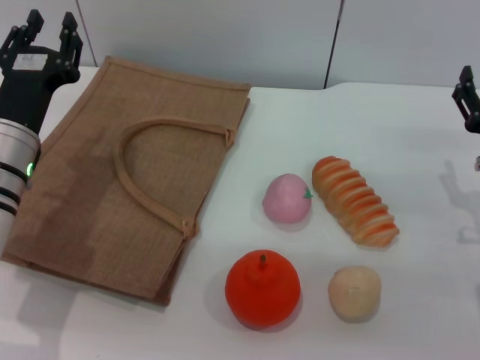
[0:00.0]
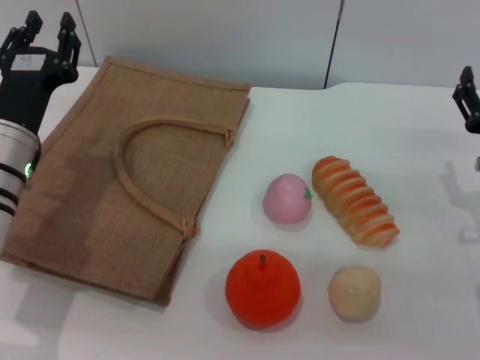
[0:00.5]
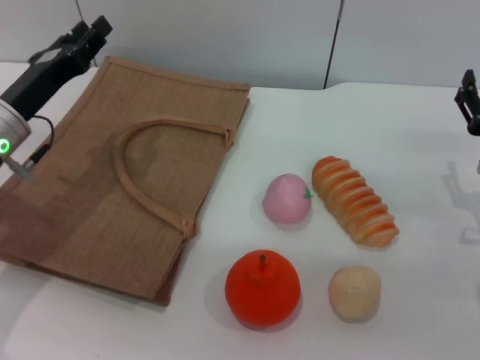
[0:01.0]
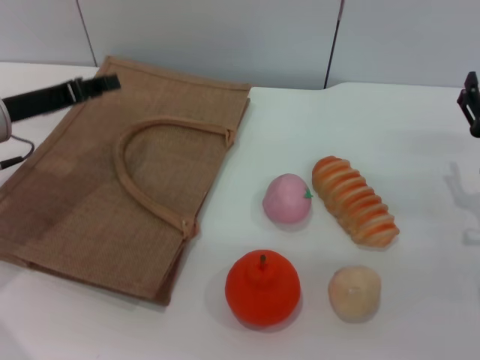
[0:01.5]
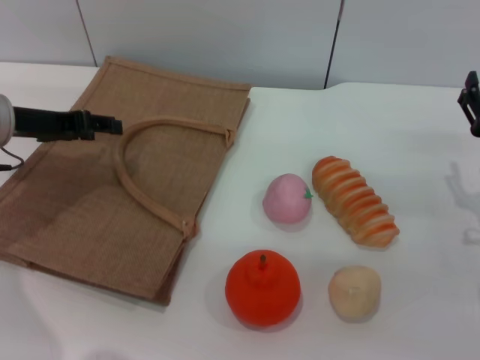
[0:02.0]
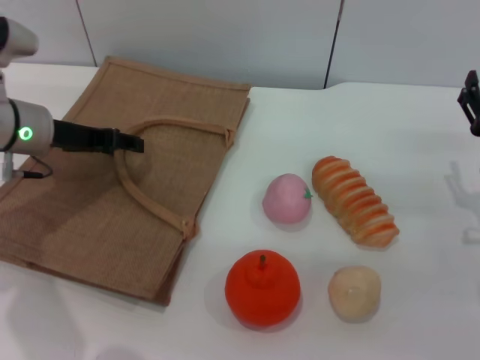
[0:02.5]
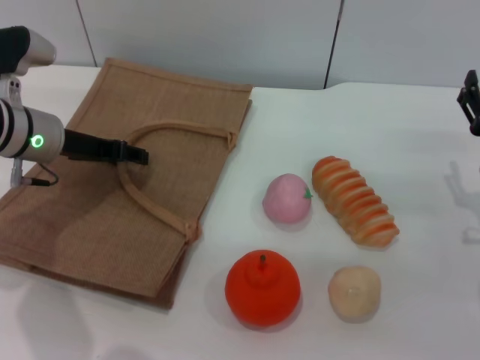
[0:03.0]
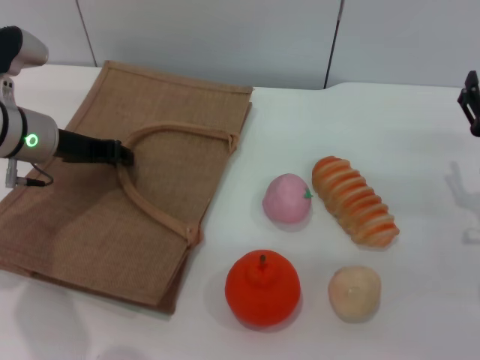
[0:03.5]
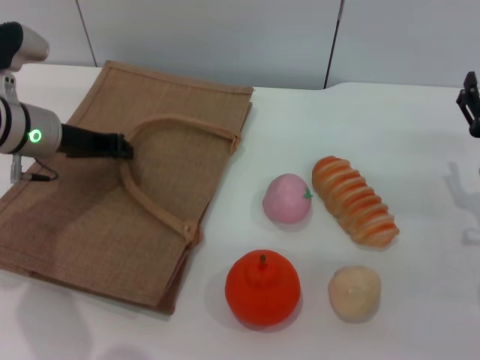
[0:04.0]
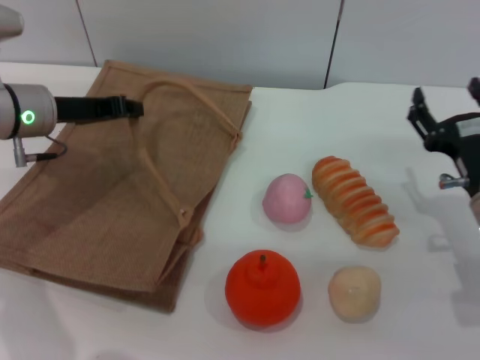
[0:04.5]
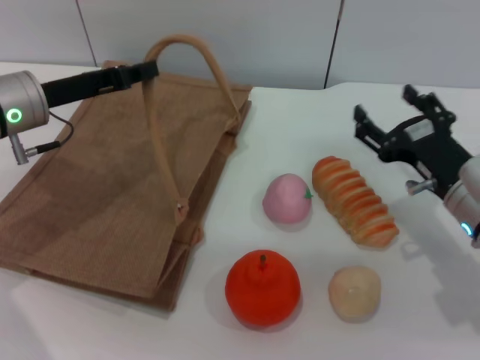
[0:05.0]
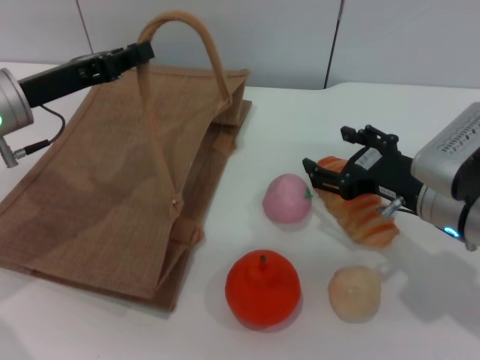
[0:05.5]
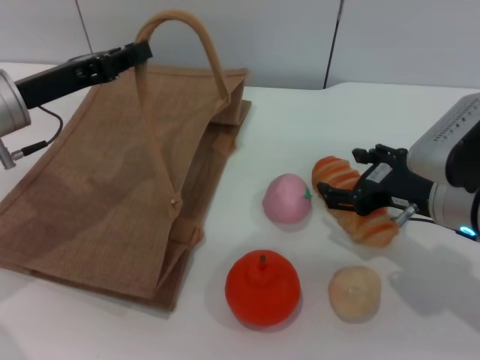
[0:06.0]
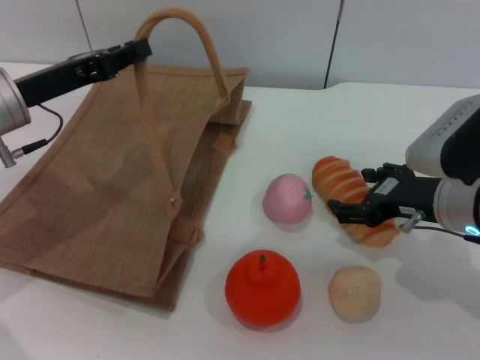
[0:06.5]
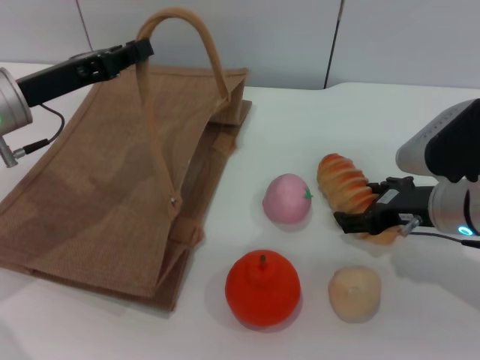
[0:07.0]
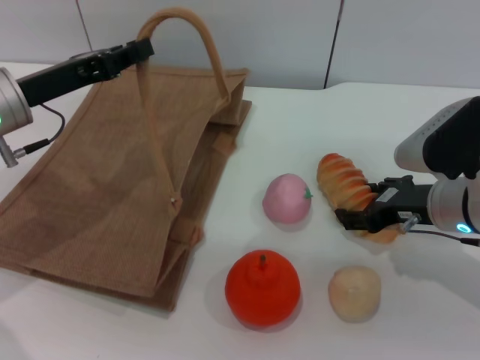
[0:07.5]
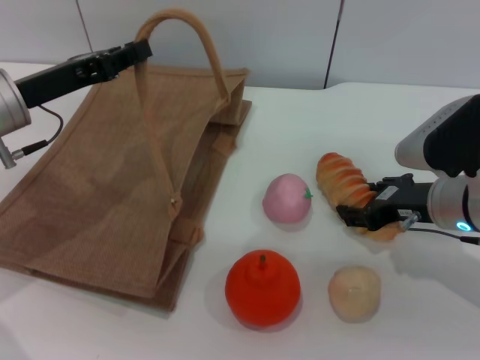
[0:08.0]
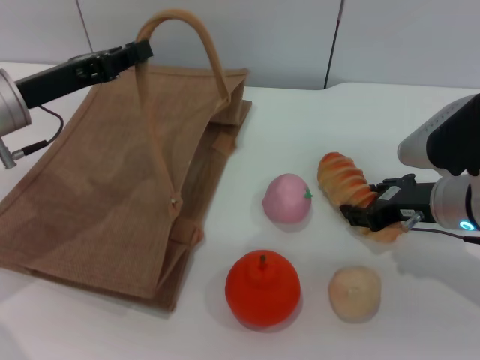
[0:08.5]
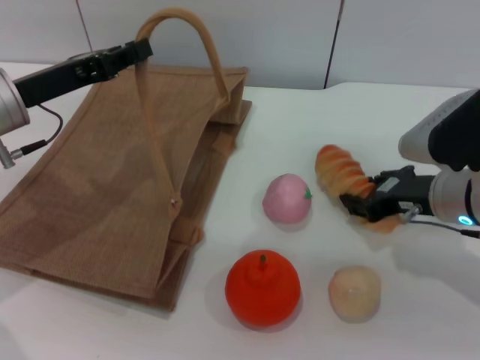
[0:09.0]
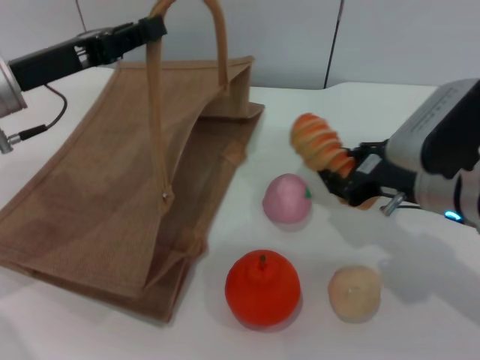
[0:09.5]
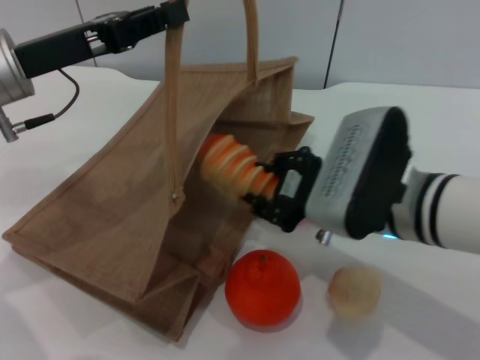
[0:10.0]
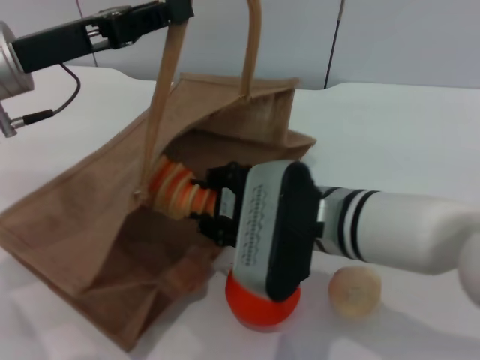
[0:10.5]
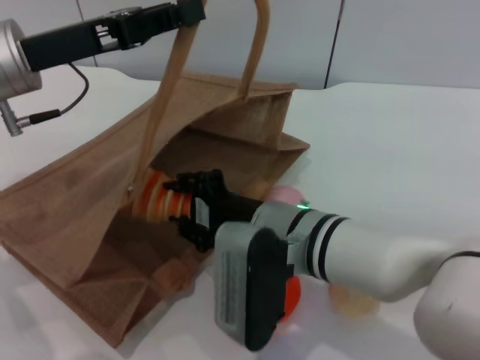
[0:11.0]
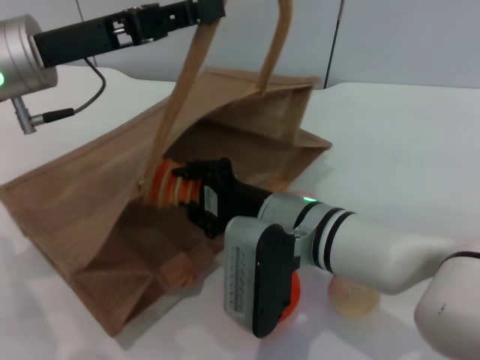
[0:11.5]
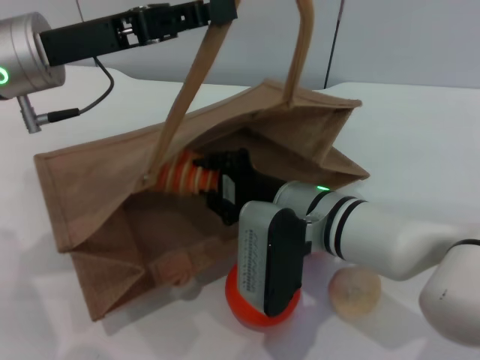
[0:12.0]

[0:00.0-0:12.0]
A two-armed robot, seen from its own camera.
Task of the whole recording: pick up the bread from the table and place it in the brown handbag.
Step, 0:00.0 to 0:04.5: Lift the woven bag with the left gripper to open it.
Step, 0:05.0 to 0:09.0: Pick up the bread with the right gripper.
0:00.0 to 0:02.0: The left gripper goes about 10 cm to the left, upward and forward.
0:02.0 to 0:04.0: The left gripper ends up roughly 5 cm from where it was, and closes up.
0:04.0 to 0:06.0: The right gripper is displaced to the left and upward by some 10 cm; the left gripper shifts by some 5 cm.
0:06.0 to 0:08.0: The grippers move only a little.
0:08.0 to 0:10.0: The right gripper shifts approximately 10 cm to the left, and closes up.
0:10.0 to 0:12.0: The right gripper travels to the left and downward by some 10 cm.

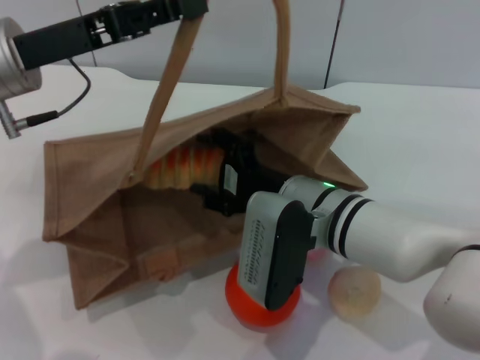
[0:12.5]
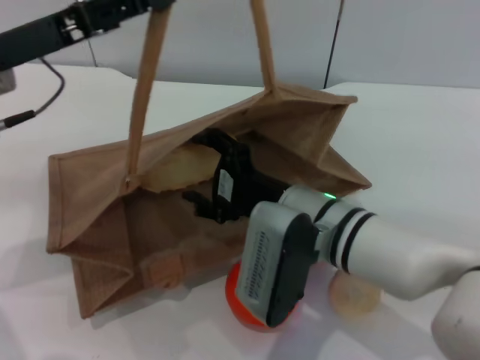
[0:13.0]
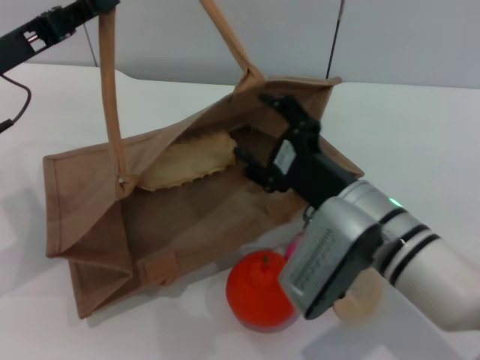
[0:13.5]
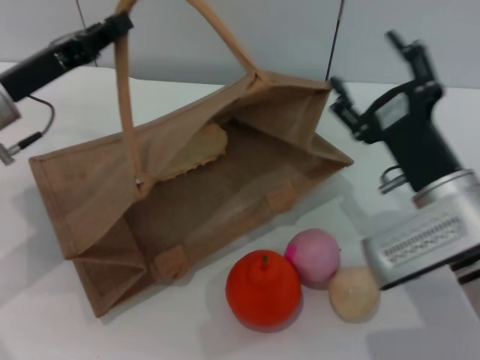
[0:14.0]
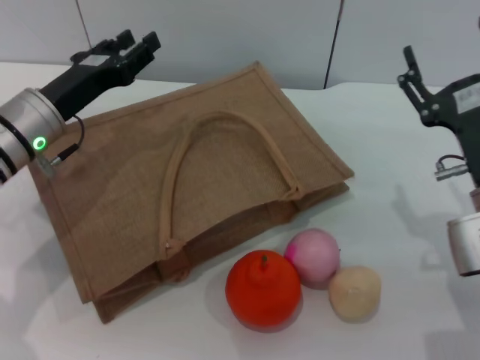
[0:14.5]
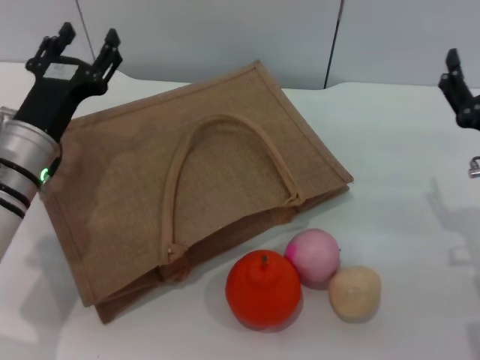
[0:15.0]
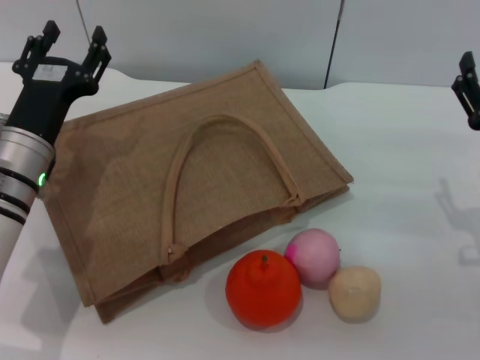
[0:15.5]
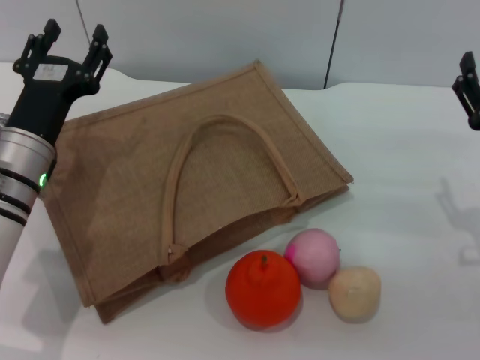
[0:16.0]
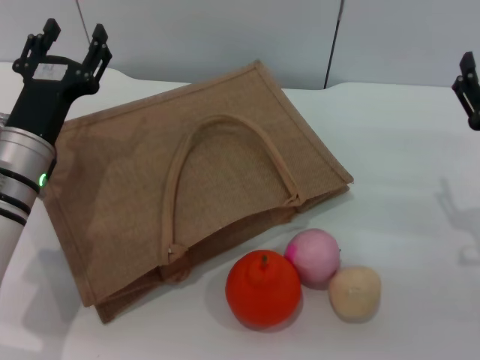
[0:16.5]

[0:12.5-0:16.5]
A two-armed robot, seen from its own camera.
Task of the whole recording: pick up the bread from the table and place it in the brown handbag.
Step, 0:13.5 to 0:14.5: Lower the woven bag with the left gripper to close it.
0:12.5 to 0:14.5: The left gripper goes about 10 cm downward, and opens its fingers. Meanwhile the right gripper shifts roughly 15 cm to the right, and opens its fingers.
0:14.5 to 0:16.5: The left gripper changes place by approximately 5 cm, and opens its fingers.

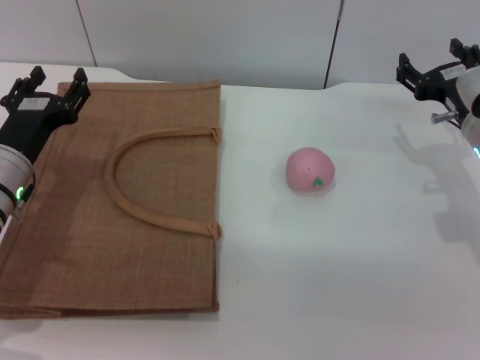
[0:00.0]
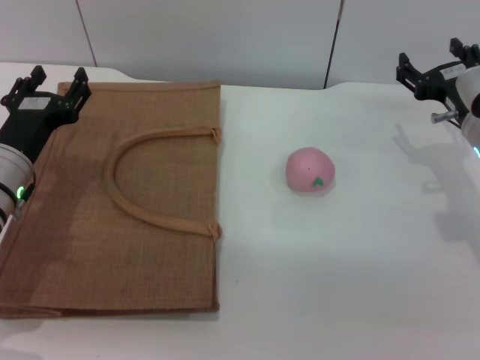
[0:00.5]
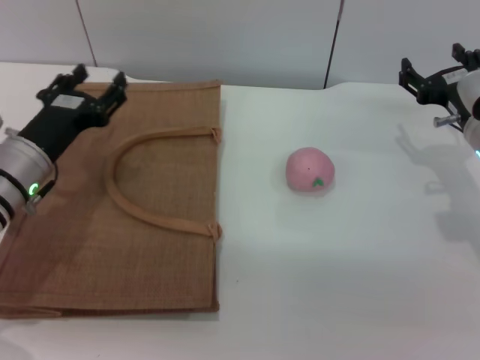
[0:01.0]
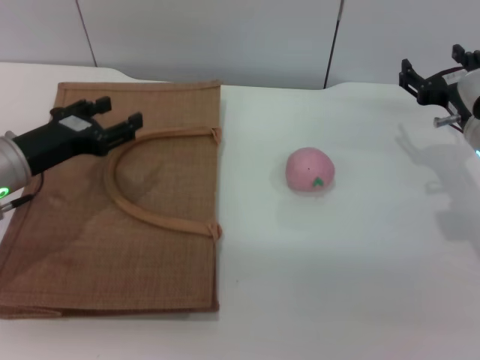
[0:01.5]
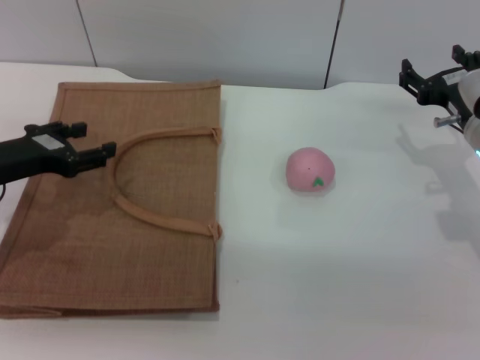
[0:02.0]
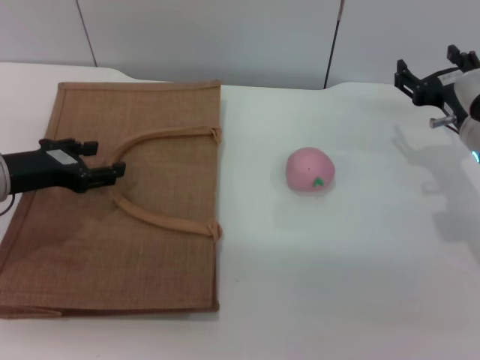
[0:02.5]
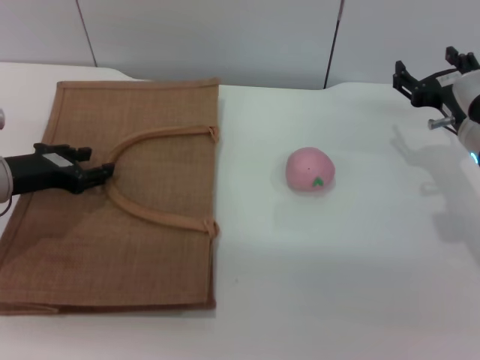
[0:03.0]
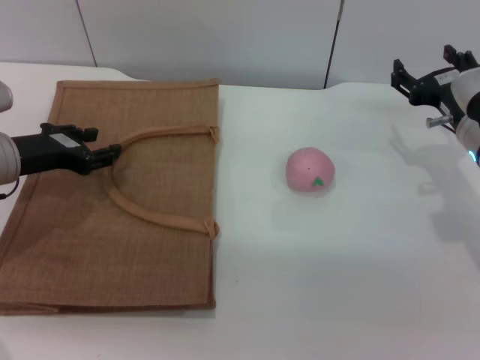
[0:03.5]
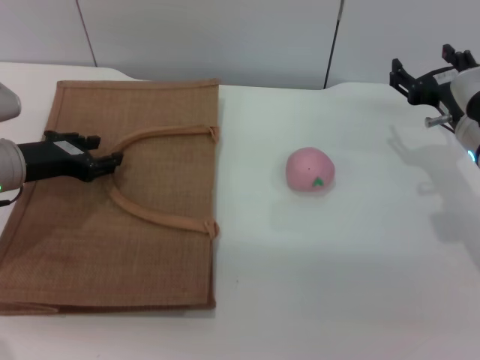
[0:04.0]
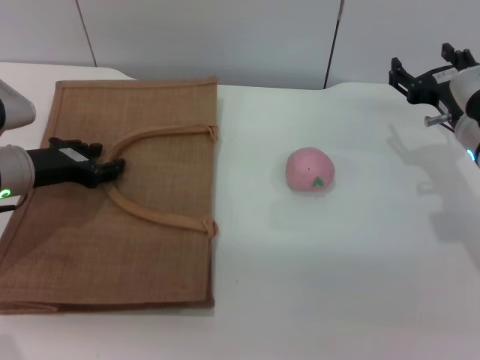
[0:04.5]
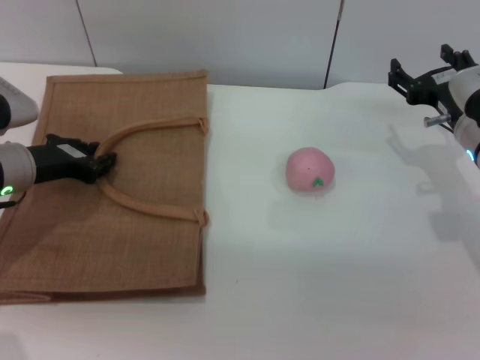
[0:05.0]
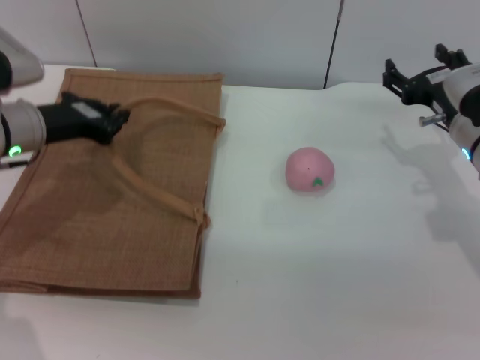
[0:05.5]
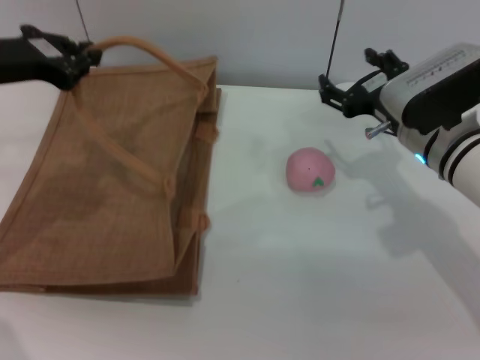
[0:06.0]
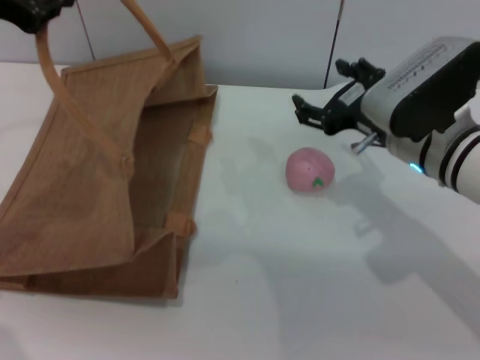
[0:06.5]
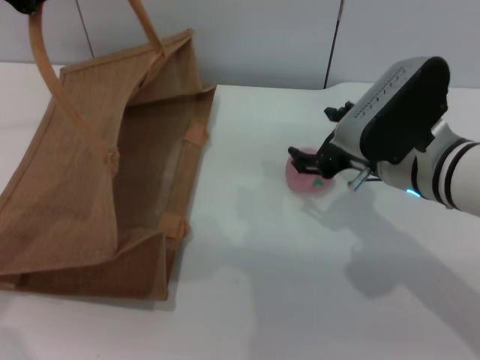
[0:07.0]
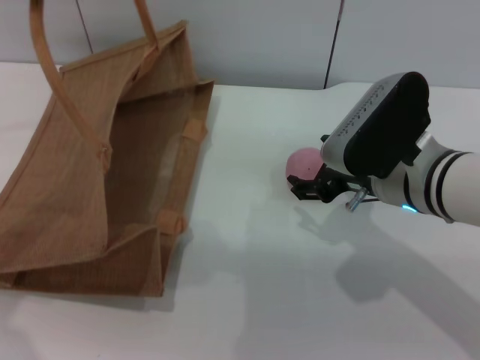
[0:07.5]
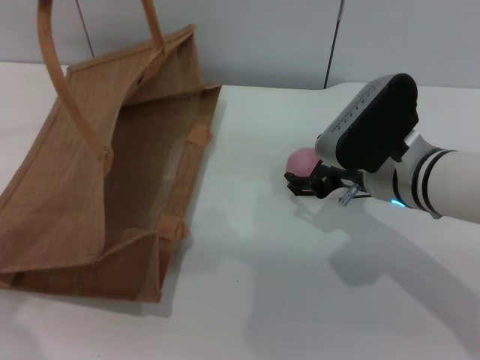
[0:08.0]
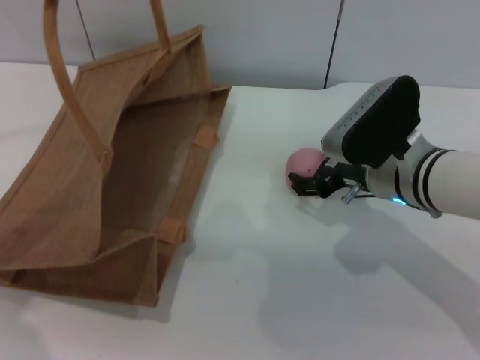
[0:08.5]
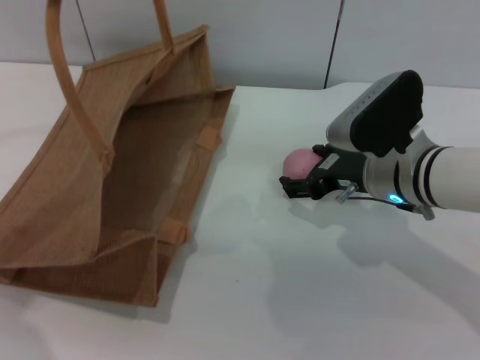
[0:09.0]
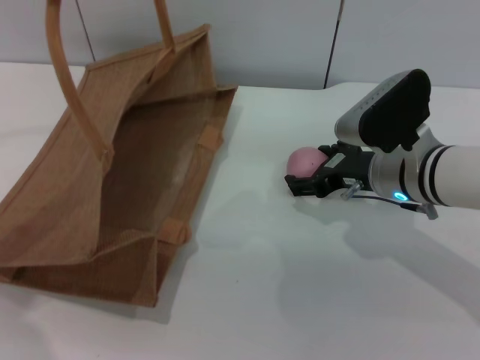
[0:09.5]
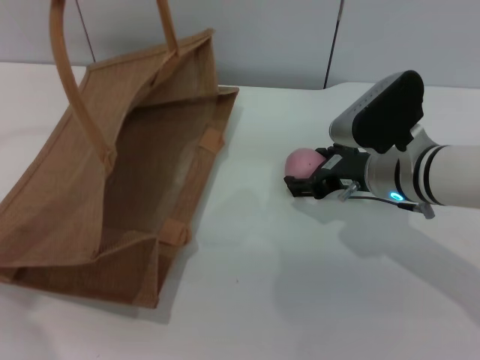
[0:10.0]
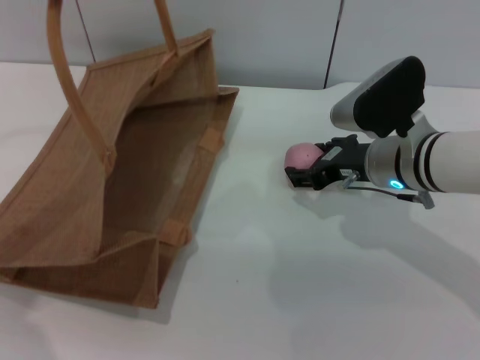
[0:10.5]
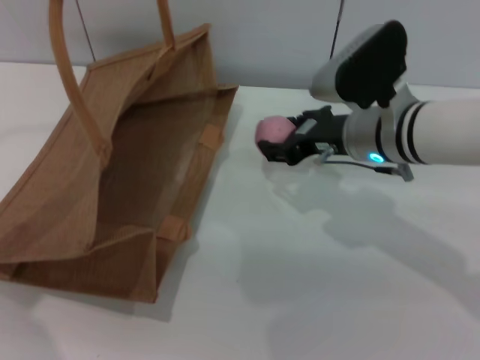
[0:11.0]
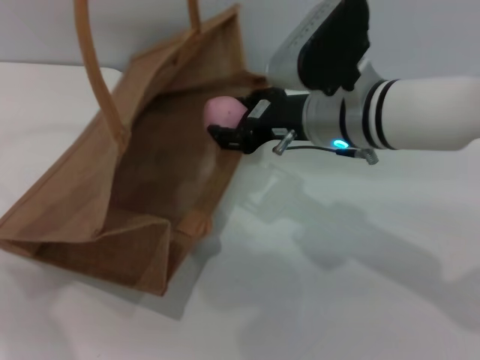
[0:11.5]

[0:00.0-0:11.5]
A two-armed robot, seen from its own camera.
Task of the whole recording: pick up the peach from the table and place it in the brown handbag.
Step, 0:00.0 to 0:05.5: Lift the woven bag with the left gripper to open it.
Step, 0:06.0 to 0:11.0: Pick up the peach with the right gripper.
0:00.0 to 0:02.0: The left gripper shifts by approximately 5 cm.
0:02.0 to 0:04.0: The grippers make only small movements.
0:04.0 to 0:06.0: The right gripper moves to the left, some 5 cm; the left gripper shifts approximately 10 cm upward, and closes up.
0:06.0 to 0:07.5: The right gripper heads backward, covering some 5 cm. Meanwhile the left gripper heads upward, covering approximately 10 cm.
0:07.5 to 0:09.5: The right gripper shifts by approximately 5 cm.
0:09.5 to 0:11.5: The right gripper goes some 10 cm to the left and upward, and closes its fingers.
